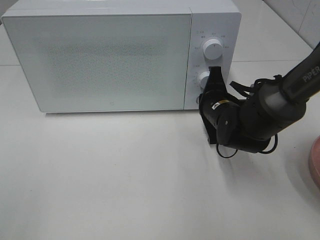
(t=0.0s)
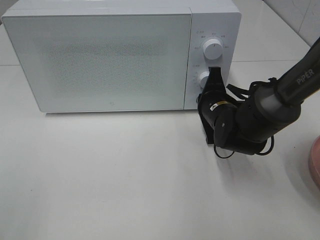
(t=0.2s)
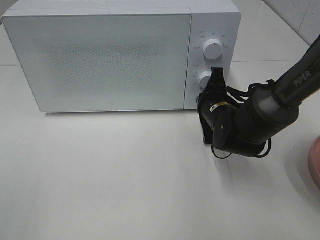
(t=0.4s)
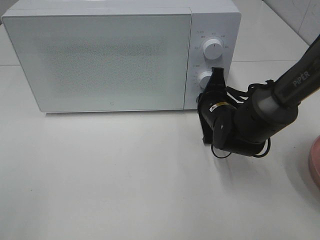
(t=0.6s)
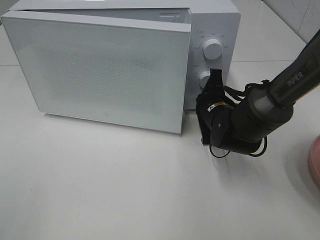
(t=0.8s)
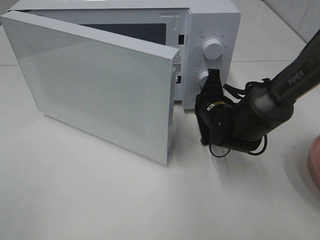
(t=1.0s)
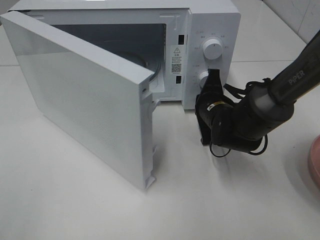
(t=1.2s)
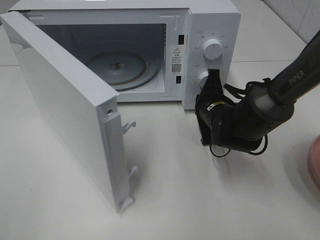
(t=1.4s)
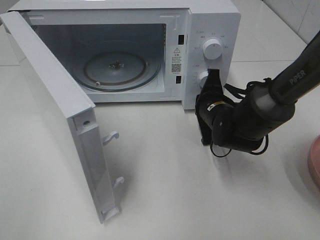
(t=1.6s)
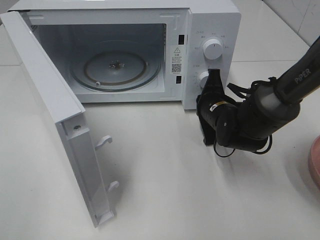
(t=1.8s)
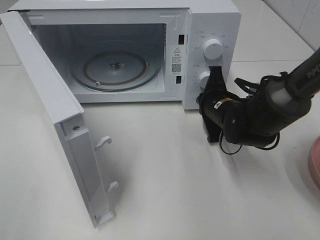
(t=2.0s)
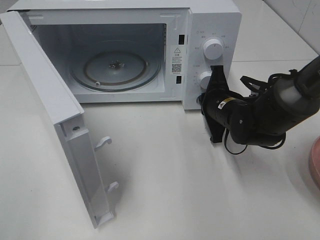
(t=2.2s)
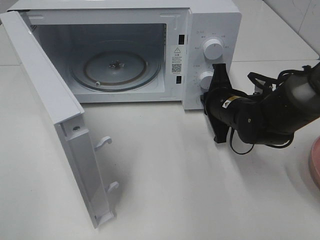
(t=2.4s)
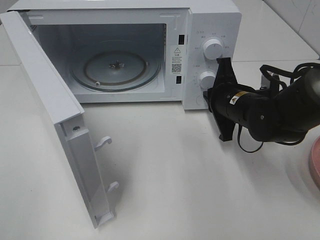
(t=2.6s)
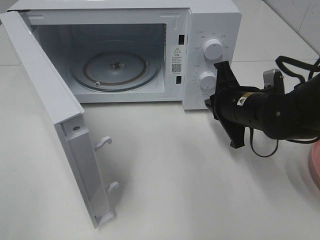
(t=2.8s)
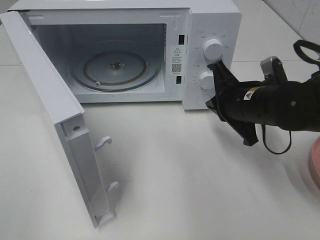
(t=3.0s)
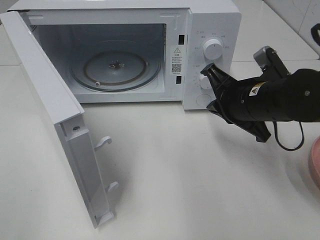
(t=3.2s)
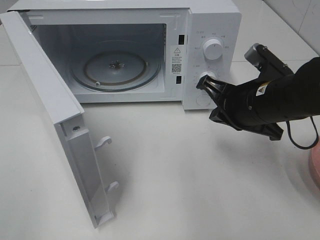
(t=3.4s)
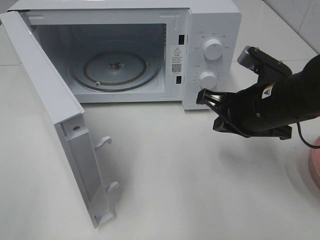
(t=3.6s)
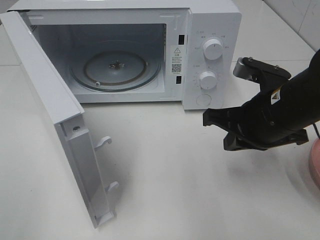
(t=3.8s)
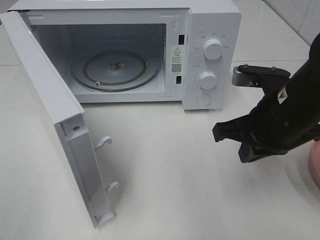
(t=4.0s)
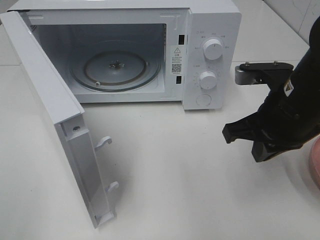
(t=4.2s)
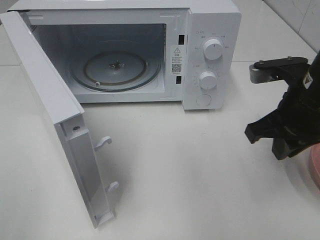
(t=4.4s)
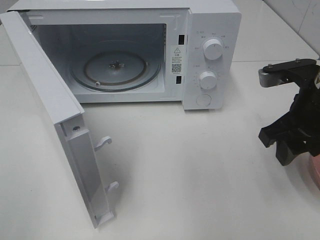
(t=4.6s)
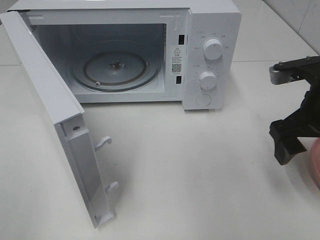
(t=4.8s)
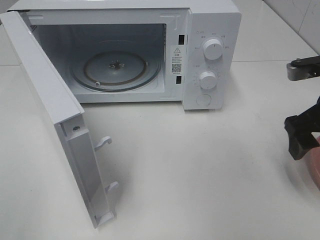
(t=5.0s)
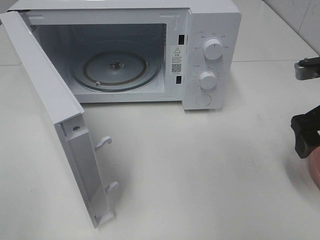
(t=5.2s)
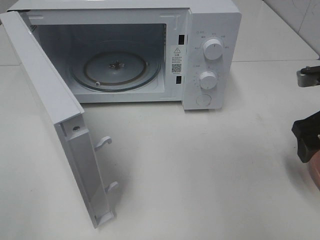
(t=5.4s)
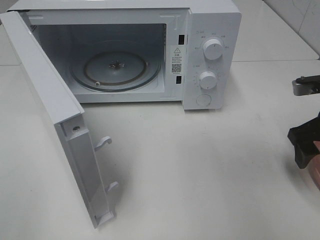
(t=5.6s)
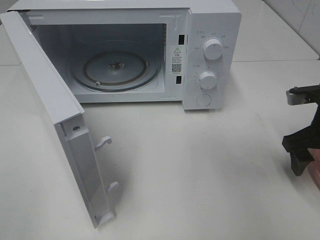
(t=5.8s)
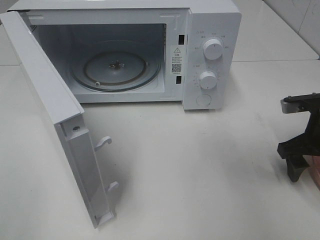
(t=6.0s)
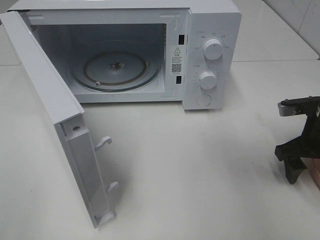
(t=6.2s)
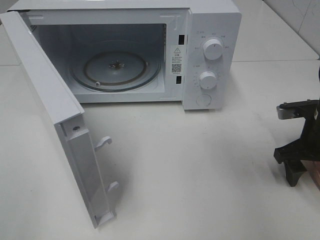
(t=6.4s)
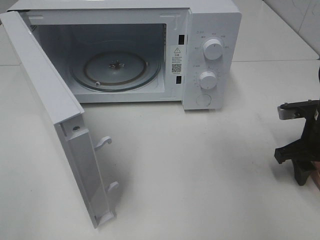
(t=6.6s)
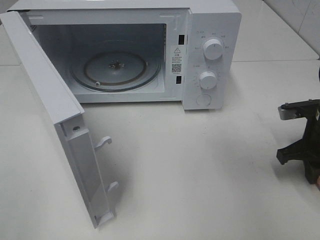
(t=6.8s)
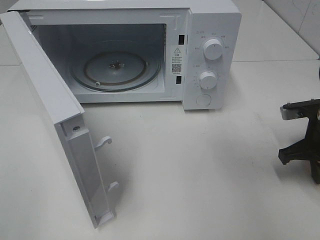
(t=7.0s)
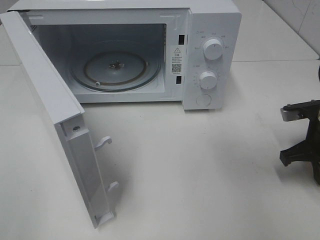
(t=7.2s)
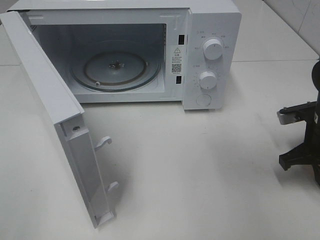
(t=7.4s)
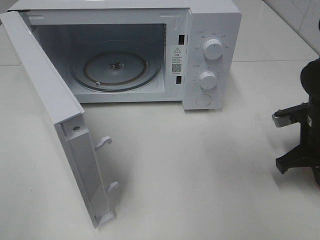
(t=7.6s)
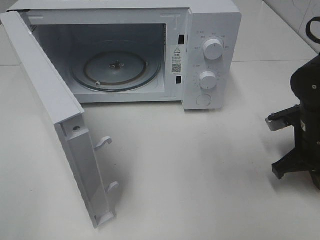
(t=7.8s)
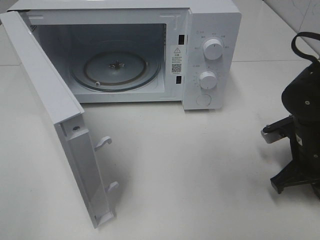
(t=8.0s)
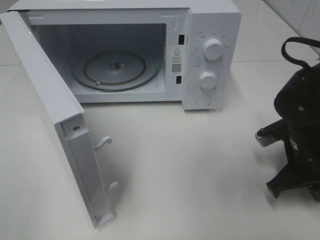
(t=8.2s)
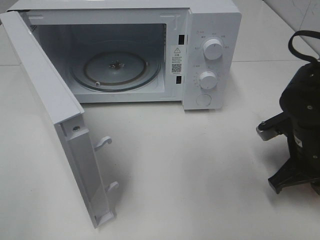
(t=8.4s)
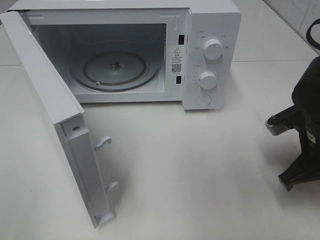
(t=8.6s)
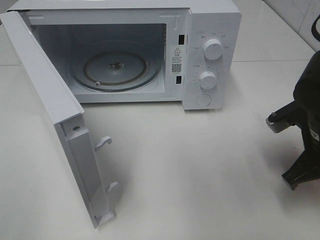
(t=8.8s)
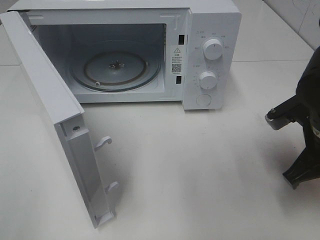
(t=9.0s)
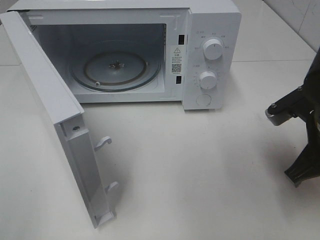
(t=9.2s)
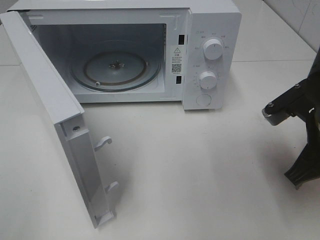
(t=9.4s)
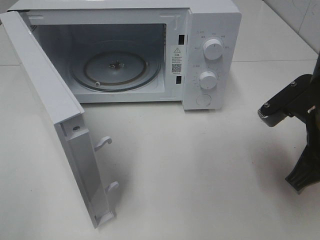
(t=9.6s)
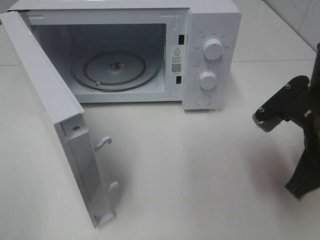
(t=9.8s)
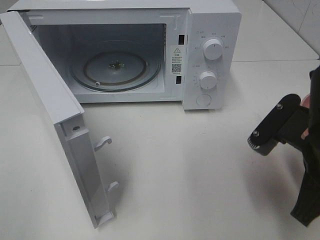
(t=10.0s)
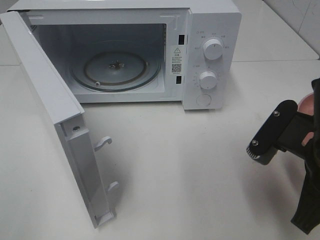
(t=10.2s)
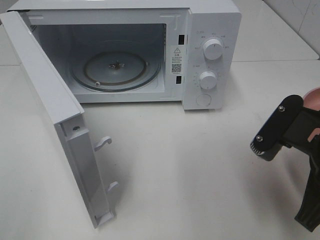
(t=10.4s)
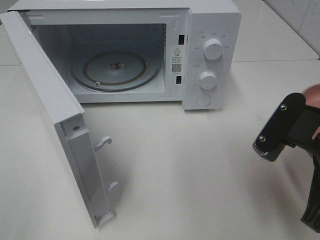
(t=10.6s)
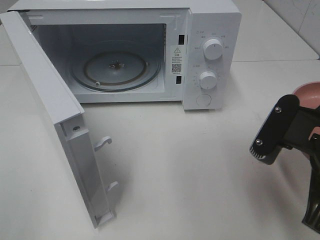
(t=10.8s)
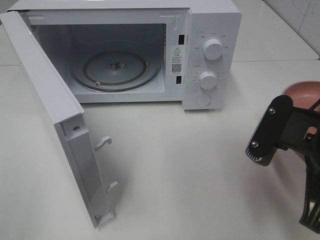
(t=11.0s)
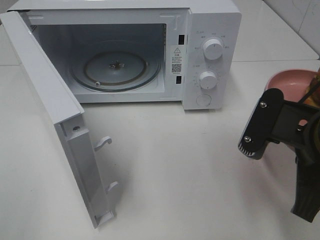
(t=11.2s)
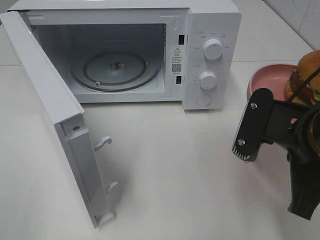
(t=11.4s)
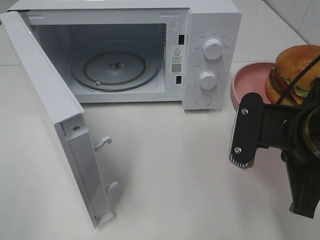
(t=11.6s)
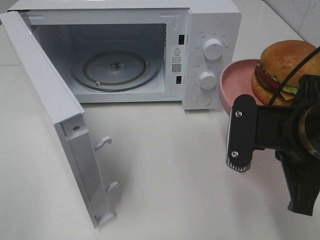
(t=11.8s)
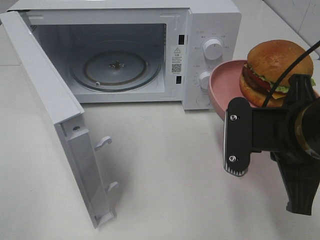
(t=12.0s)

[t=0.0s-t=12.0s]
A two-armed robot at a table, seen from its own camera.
Task of the whole recording: Heat the burger.
Step, t=0.0s to t=2.4s: Right hand: press the switch.
Step, t=2.6s to t=7.0s: Right hand: grab the plate with the hamburger.
t=1.6s to t=3.0s: The right gripper heads upward and backward, covering about 10 cm.
t=3.0s to t=4.4s: The right gripper moves upward and backward, some 10 cm.
t=4.4s to t=6.0s: The right gripper is displaced to the right and downward by approximately 10 cm, and opens its fingers.
t=6.0s to t=7.6s: The right gripper closes its fingers.
t=7.6s to t=9.0s: The right gripper is displaced backward and upward by some 10 cm.
t=9.0s to t=10.4s: The right gripper heads backward, covering some 10 cm.

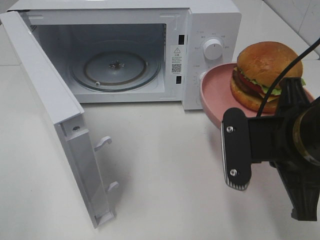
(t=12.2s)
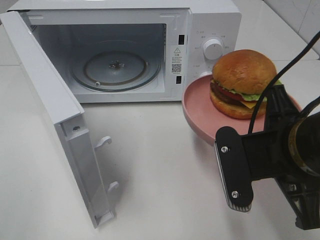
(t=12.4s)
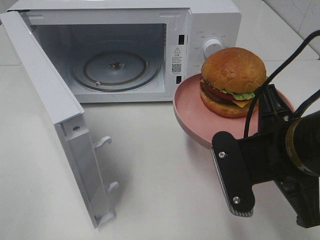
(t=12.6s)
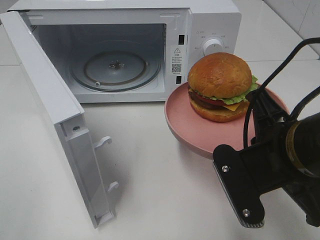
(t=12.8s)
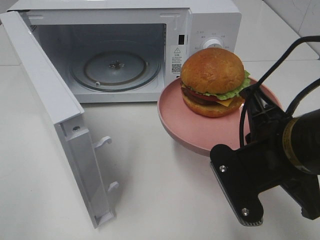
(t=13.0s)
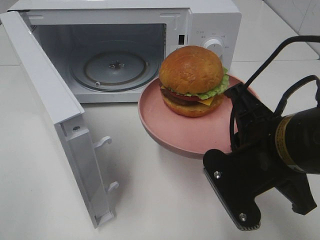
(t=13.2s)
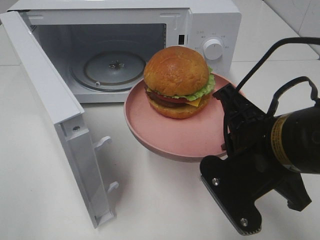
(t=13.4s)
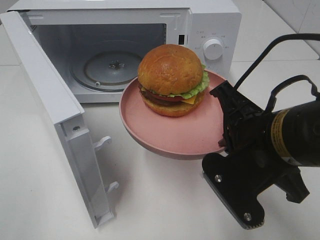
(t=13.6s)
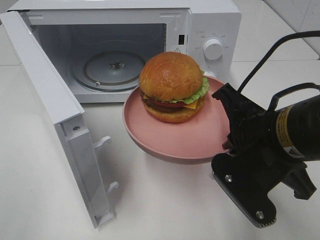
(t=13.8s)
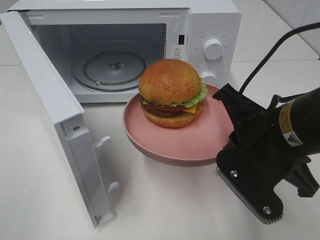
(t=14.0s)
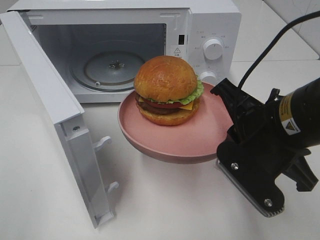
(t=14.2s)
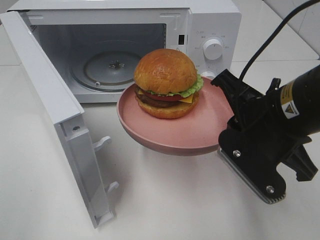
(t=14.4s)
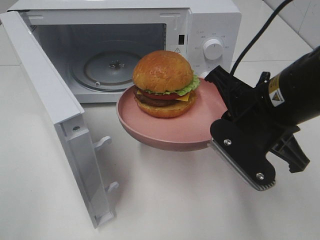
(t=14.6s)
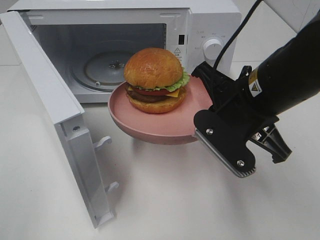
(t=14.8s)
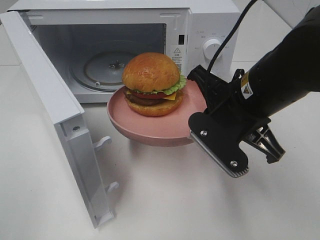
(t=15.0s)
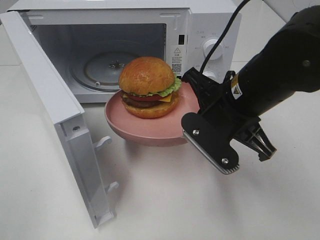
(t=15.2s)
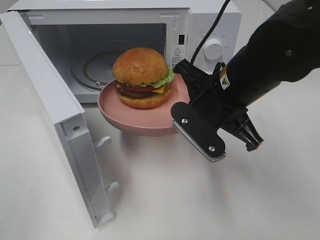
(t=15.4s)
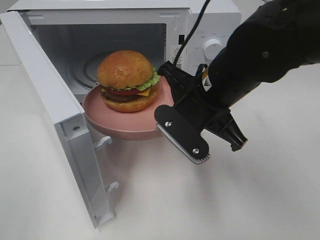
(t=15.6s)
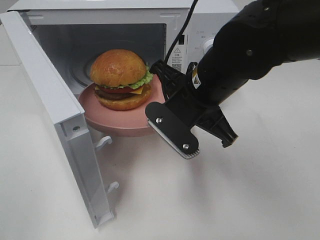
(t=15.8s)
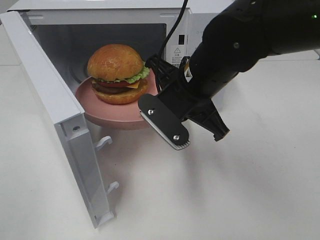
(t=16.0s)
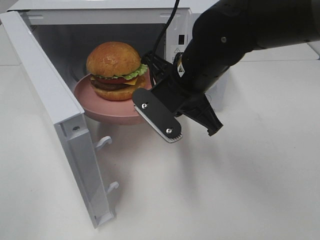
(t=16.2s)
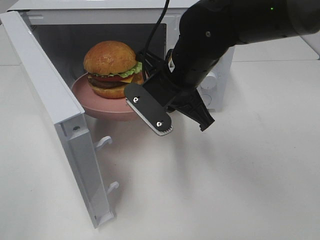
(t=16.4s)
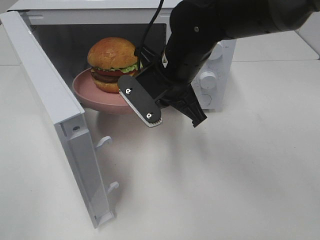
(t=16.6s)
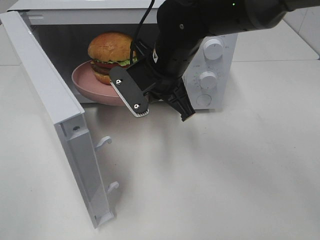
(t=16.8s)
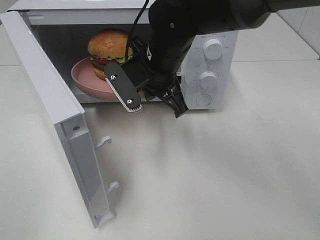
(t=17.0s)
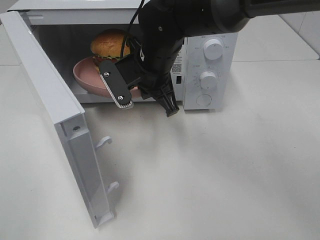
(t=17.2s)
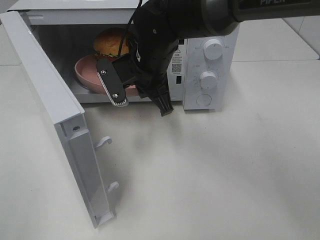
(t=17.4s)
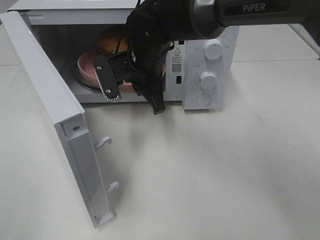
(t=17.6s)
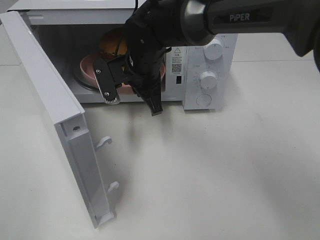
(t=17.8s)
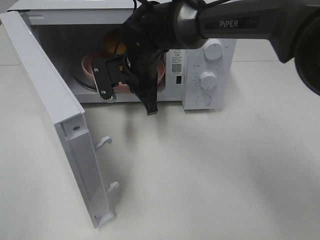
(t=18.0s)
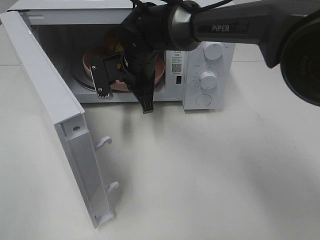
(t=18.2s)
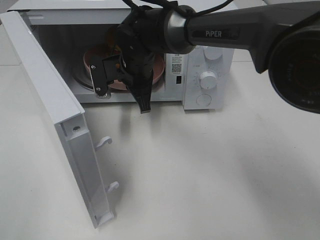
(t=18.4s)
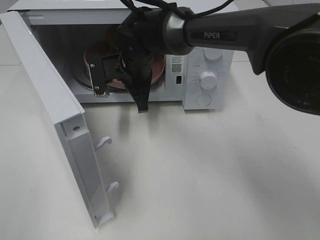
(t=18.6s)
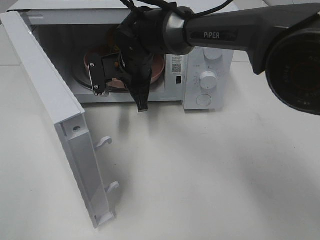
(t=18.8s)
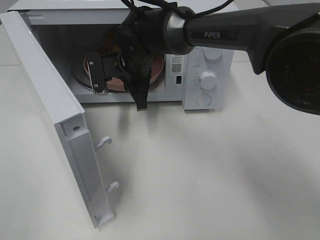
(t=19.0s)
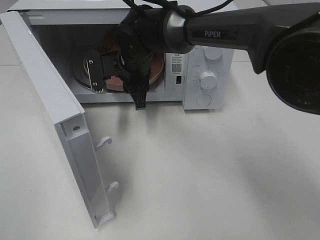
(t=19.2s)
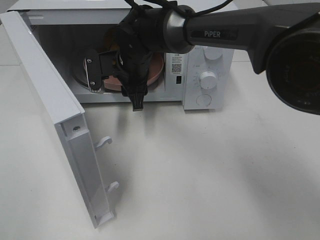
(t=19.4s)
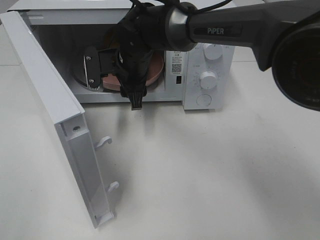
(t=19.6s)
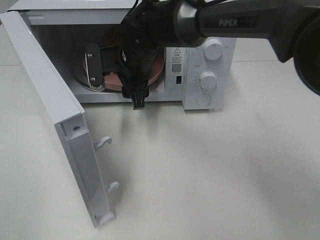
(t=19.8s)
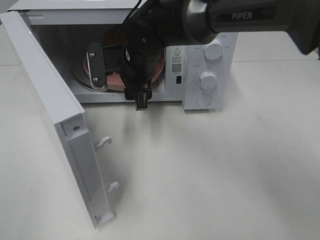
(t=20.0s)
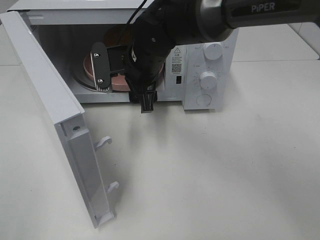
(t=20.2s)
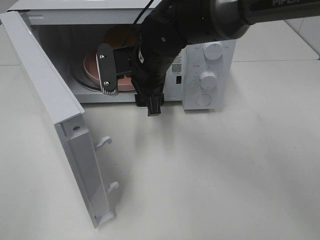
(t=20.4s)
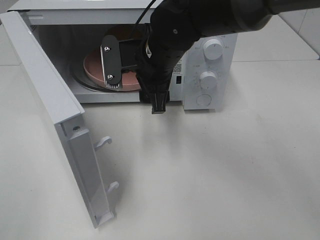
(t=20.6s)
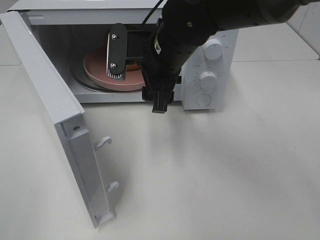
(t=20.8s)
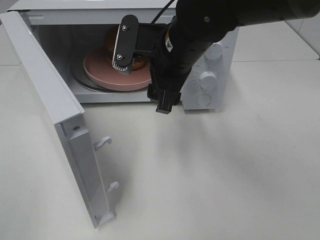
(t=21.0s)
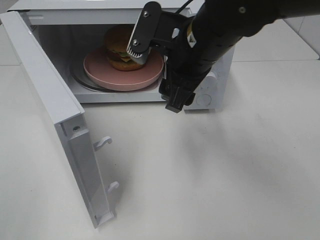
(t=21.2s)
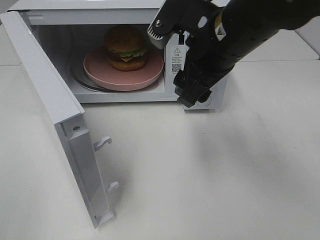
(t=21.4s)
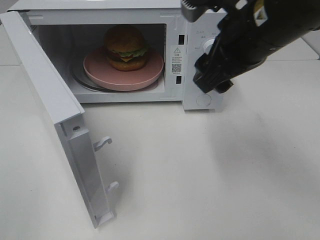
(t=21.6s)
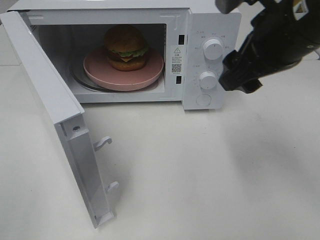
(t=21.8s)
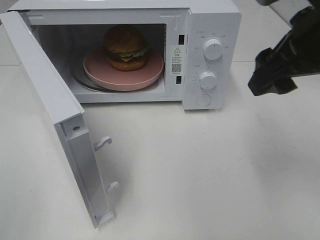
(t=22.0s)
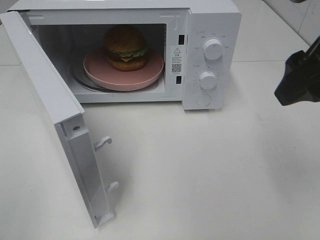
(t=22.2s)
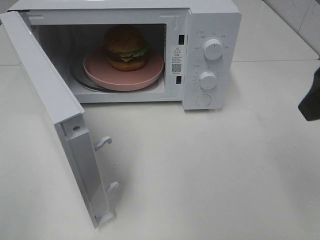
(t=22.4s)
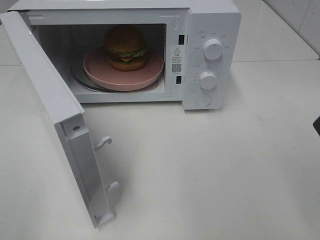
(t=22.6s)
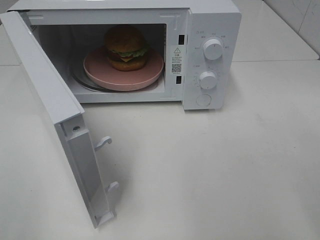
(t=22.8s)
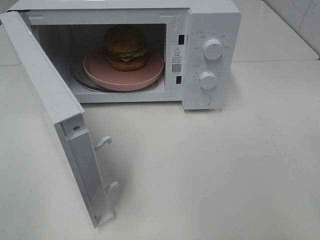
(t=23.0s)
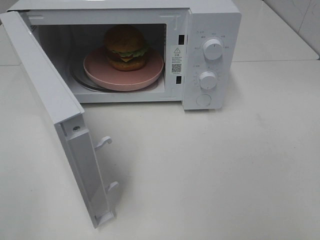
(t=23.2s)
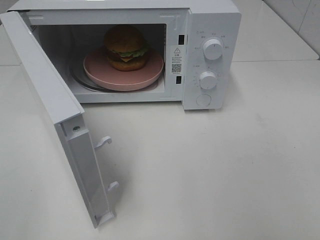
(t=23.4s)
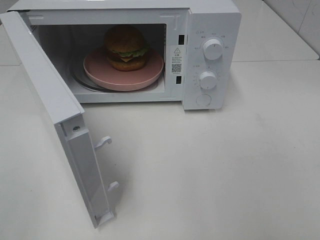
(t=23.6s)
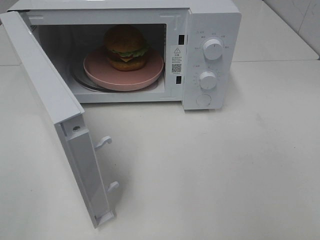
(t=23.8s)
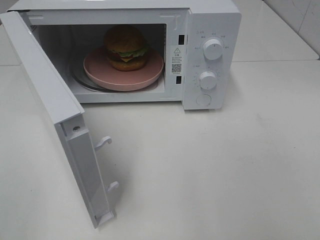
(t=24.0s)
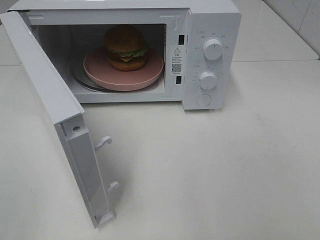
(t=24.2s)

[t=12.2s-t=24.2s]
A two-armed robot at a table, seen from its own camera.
Task of the whole recording: Heat the burger.
Step, t=12.2s to t=18.6s: Right hand: place the plate in the microwave.
t=13.8s to t=15.2s: The right gripper travels forward by about 5 cm.
t=15.2s to t=16.6s: The right gripper moves to the left and forward, about 10 cm.
t=16.6s to t=18.2s: The right gripper travels forward and to the left by approximately 10 cm.
t=18.2s to t=19.8s: The right gripper opens up.
t=19.8s to t=21.2s: The right gripper is displaced backward, to the right and upward by about 15 cm.
t=21.2s to t=22.6s: The right gripper heads to the right, backward and upward, covering roughly 25 cm.
